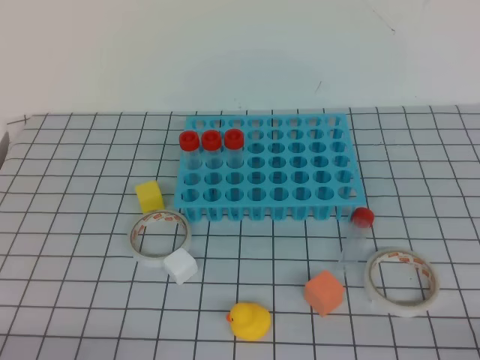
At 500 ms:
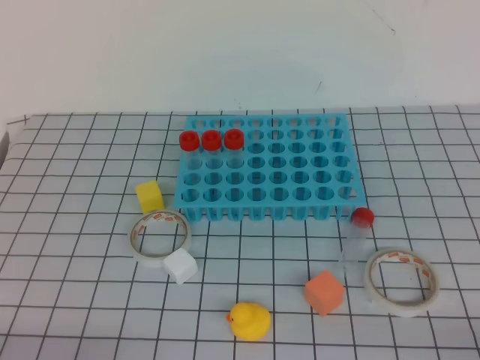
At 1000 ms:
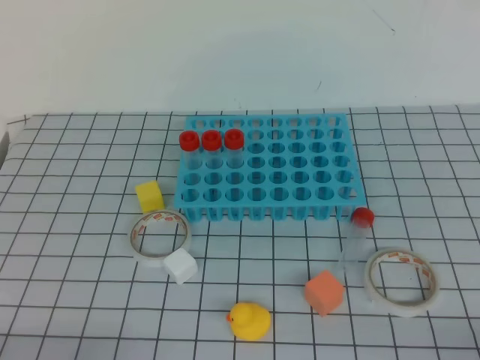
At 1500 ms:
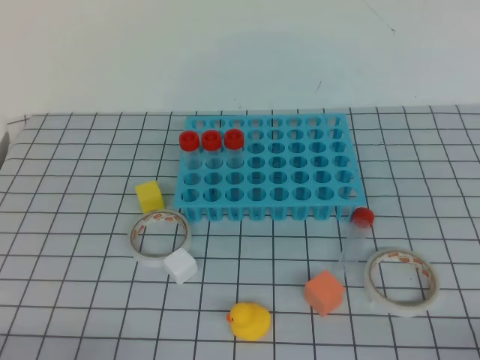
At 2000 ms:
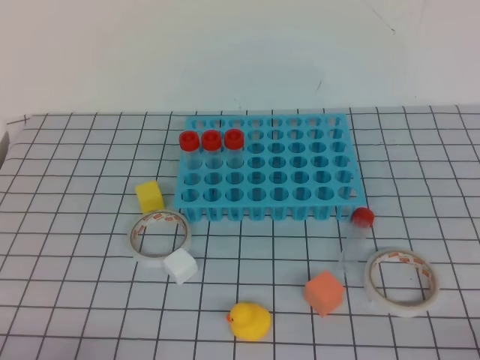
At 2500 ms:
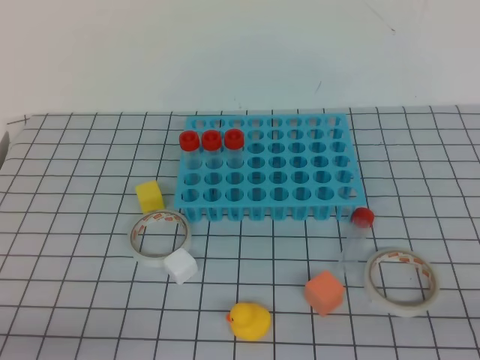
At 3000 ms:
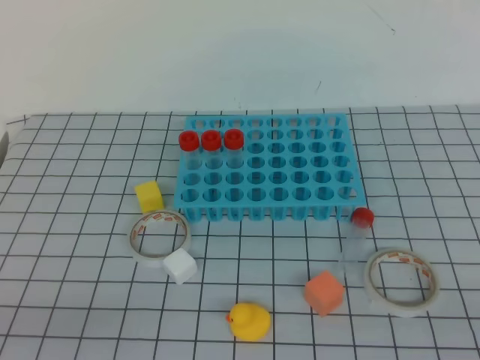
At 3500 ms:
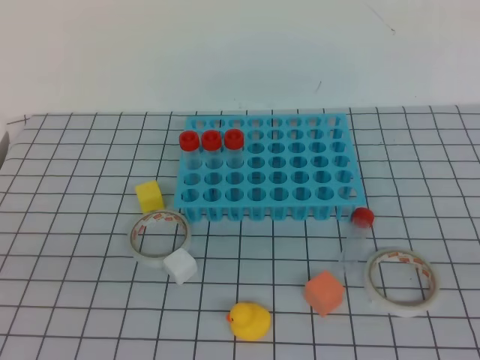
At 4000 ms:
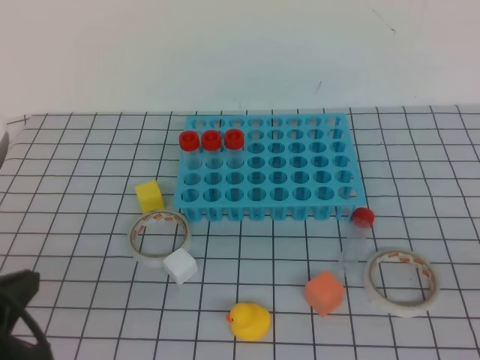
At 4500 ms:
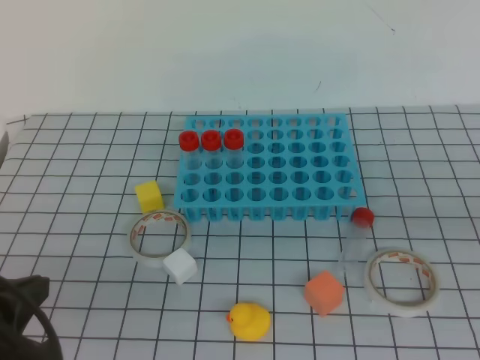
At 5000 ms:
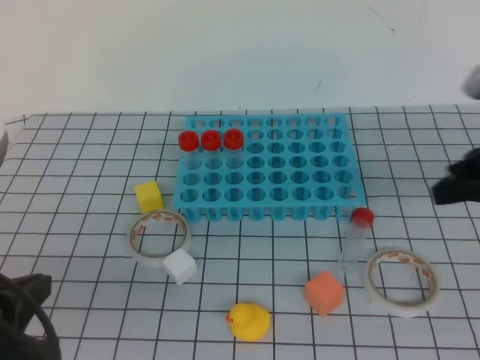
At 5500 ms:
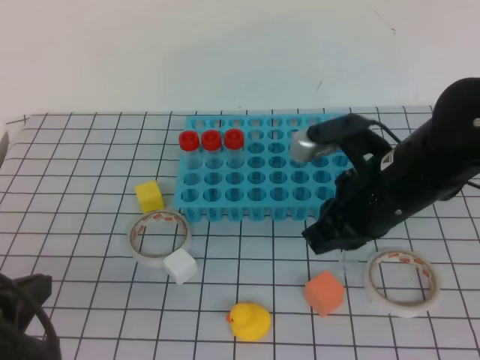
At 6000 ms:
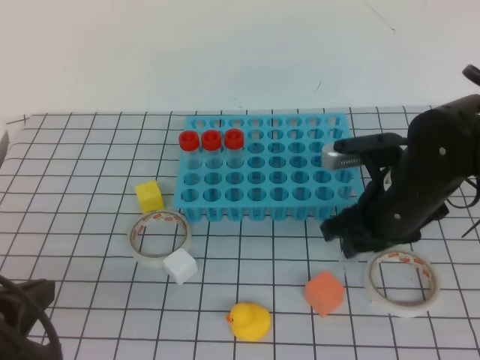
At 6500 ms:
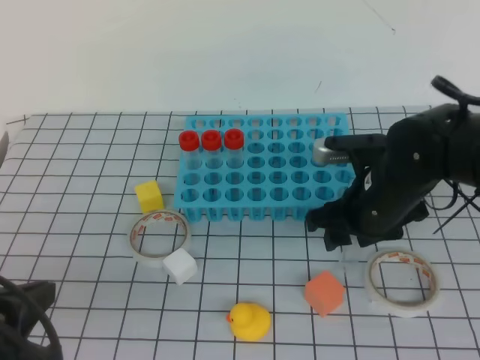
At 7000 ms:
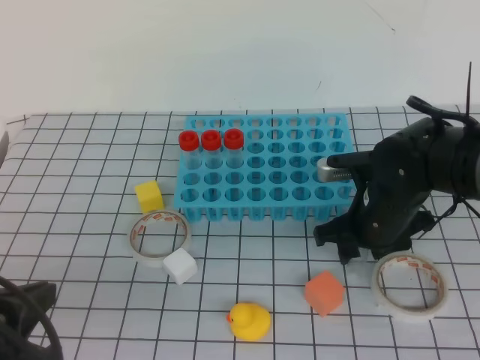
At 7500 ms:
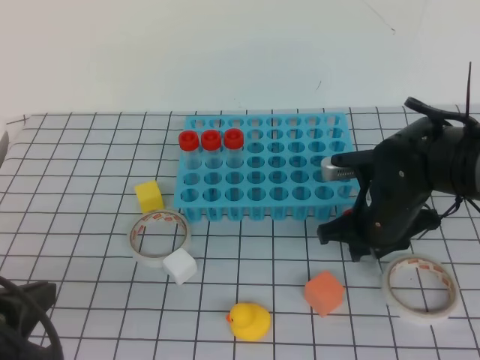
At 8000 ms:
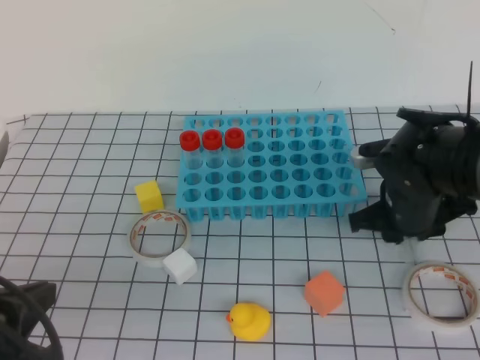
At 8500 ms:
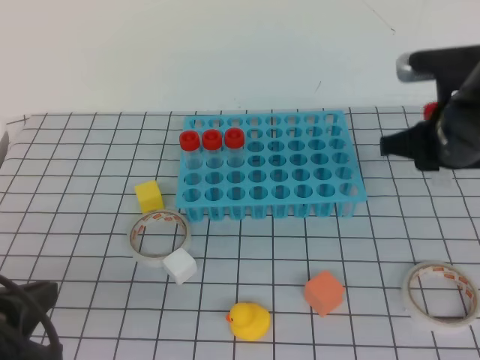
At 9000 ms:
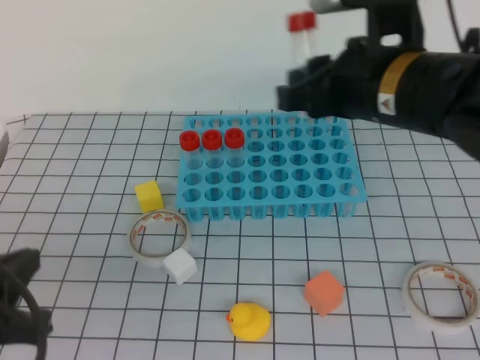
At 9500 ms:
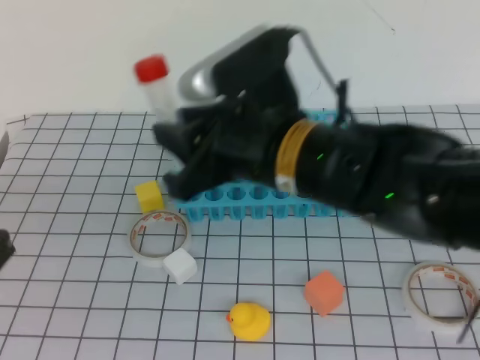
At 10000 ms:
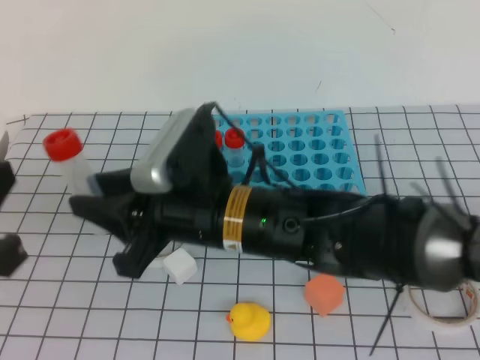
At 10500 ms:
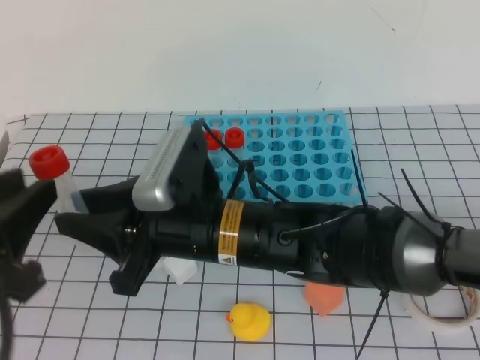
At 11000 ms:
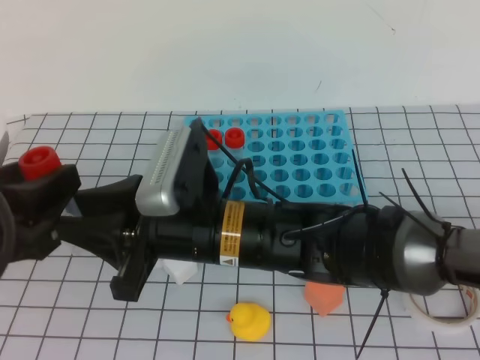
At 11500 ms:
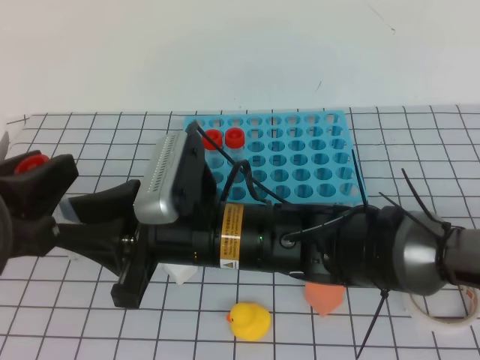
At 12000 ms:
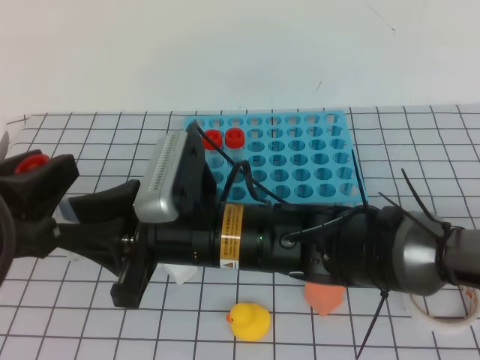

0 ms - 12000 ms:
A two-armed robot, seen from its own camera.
2000 ms - 4000 ms: The left gripper shifts some 15 cm upward and forward.
4000 ms - 6000 ms: The right gripper travels forward and to the left by about 30 cm, and opens up.
6000 ms - 8000 ms: The right gripper changes place by some 5 cm, and opens and closes again.
8000 ms - 10000 ms: The right gripper is displaced to the left, backward and upward by roughly 25 cm; the left gripper is displaced upward by about 5 cm.
10000 ms - 12000 ms: The left gripper opens its fingers.

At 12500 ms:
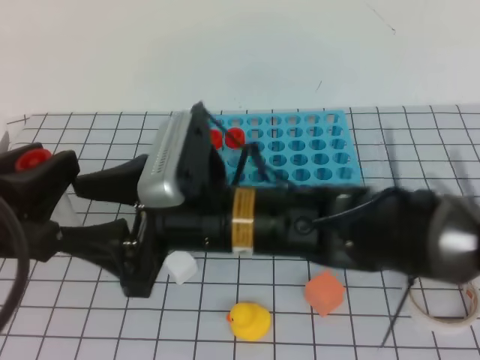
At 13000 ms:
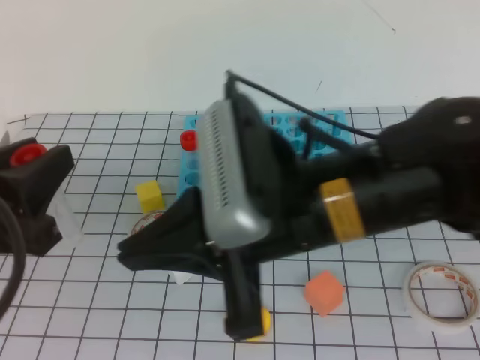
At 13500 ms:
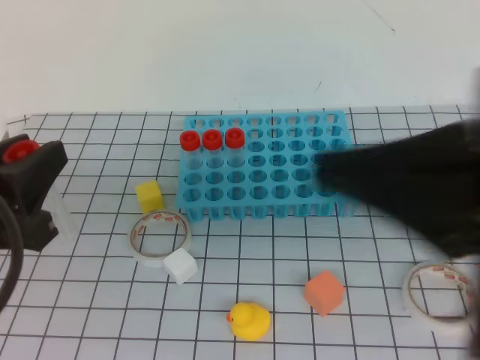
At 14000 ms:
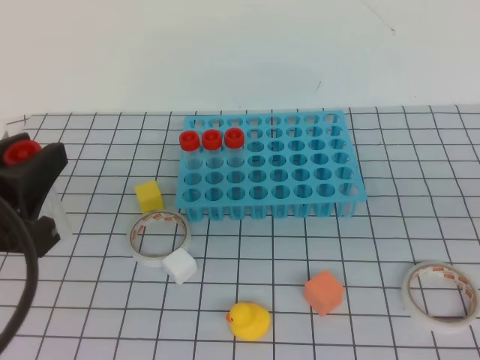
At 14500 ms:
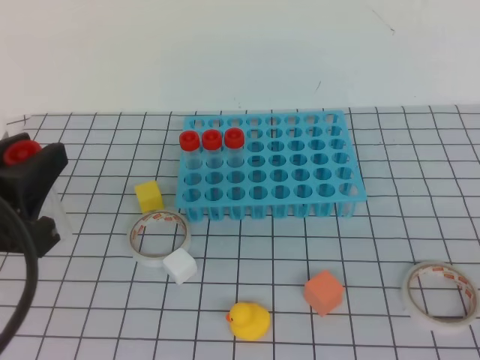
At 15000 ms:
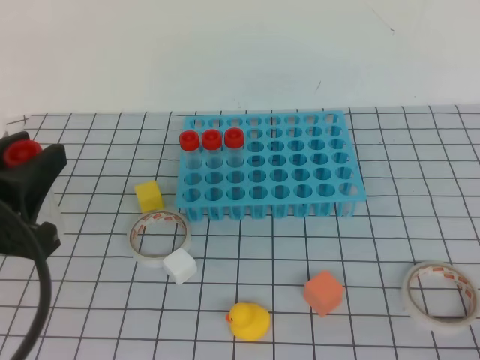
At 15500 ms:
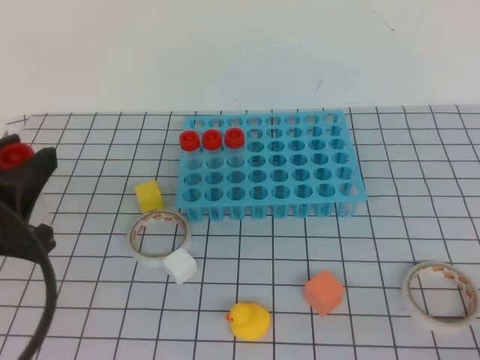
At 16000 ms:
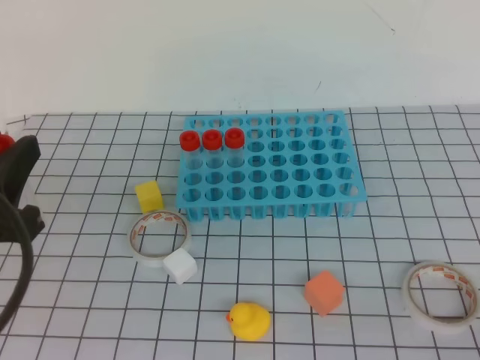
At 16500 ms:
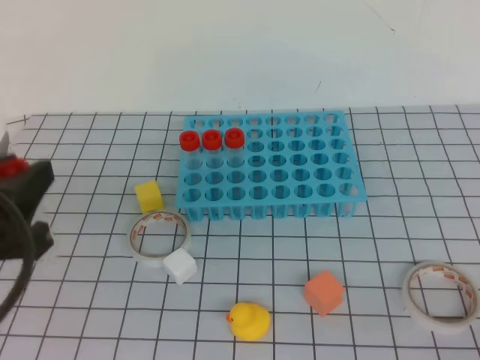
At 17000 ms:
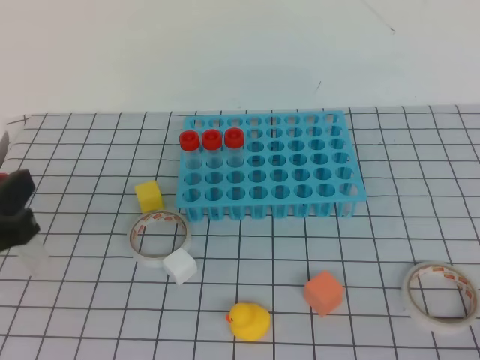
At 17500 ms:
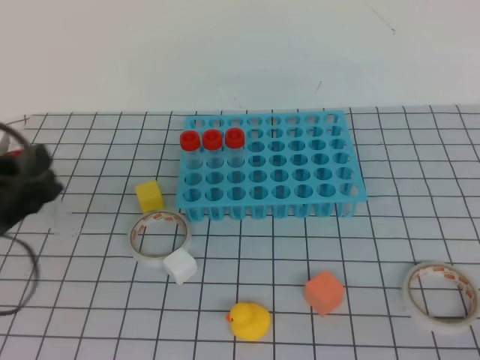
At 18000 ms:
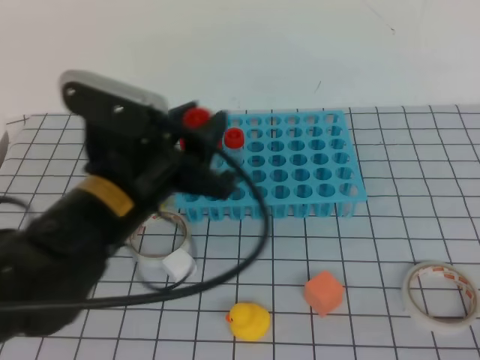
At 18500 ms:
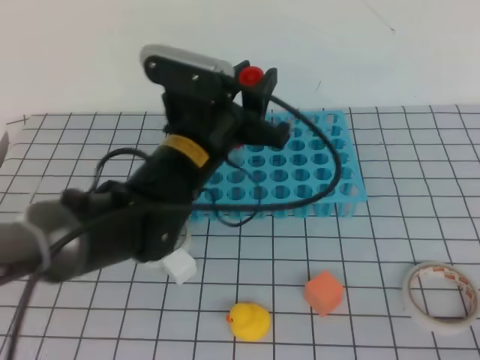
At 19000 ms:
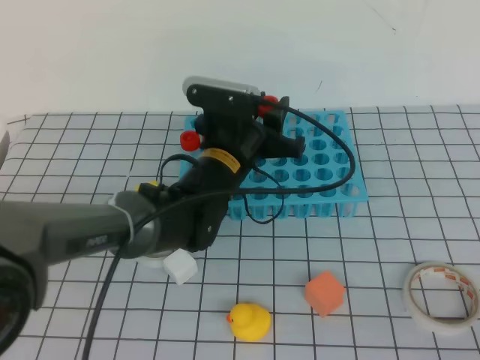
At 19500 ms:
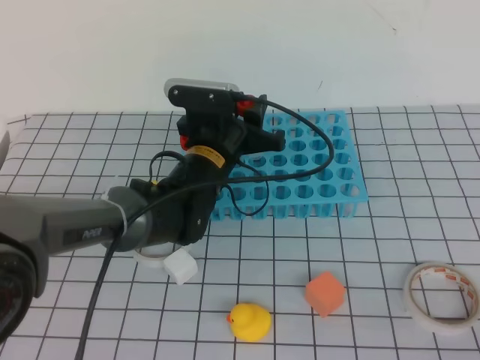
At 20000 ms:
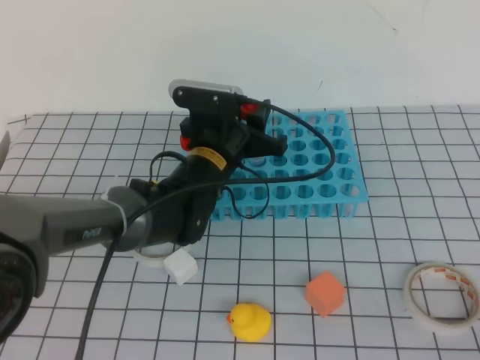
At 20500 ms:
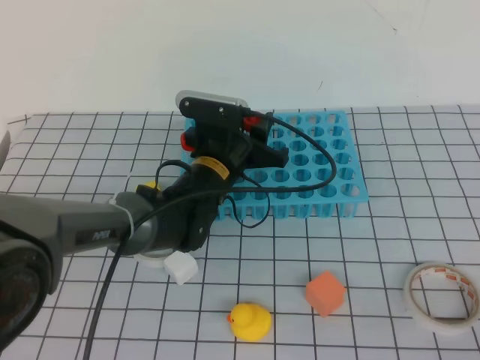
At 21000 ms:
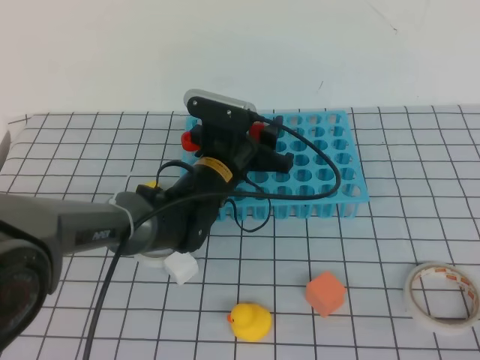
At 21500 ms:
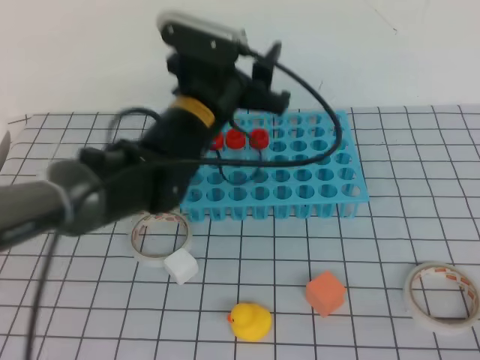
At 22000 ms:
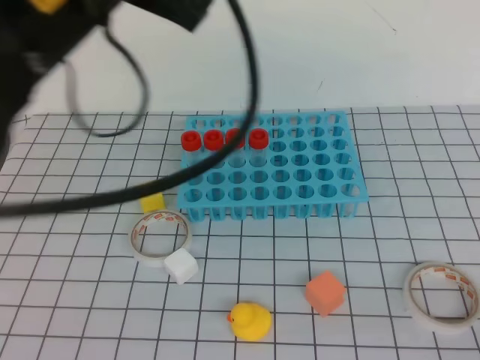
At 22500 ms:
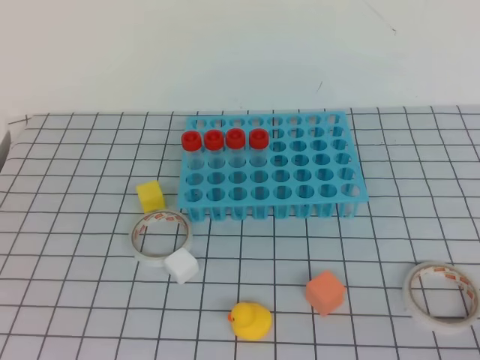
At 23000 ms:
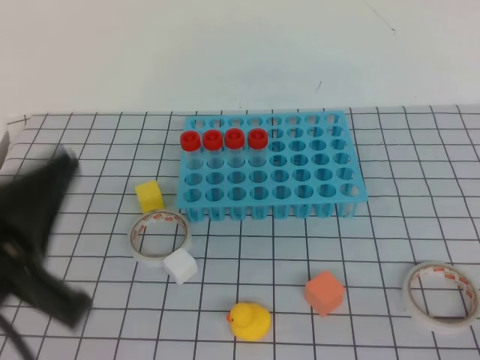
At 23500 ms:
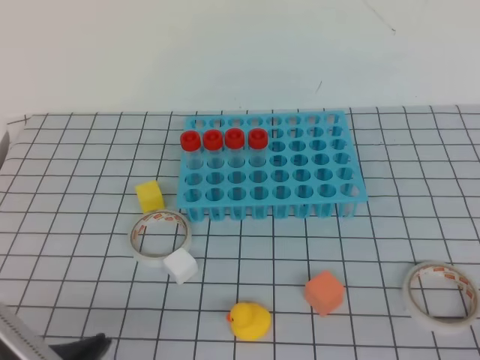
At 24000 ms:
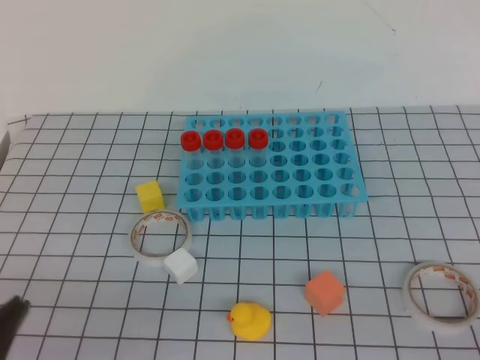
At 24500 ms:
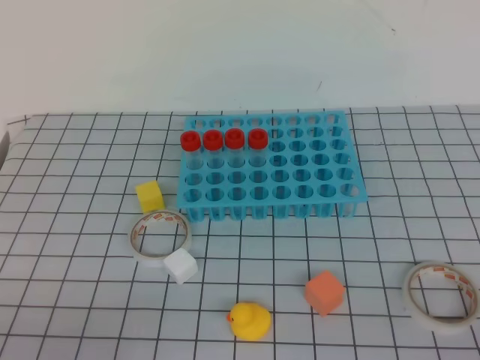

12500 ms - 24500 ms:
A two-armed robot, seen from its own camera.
12500 ms - 14500 ms: The right gripper shifts roughly 40 cm to the right and backward, and closes.
14500 ms - 16500 ms: The grippers move only a little.
16500 ms - 18500 ms: The left gripper heads to the right and forward, covering some 25 cm.
18500 ms - 20500 ms: The left gripper moves downward and forward, roughly 10 cm.
20500 ms - 22500 ms: The left gripper moves upward, backward and to the left, some 40 cm, and closes up.
22500 ms - 24500 ms: The left gripper travels downward by roughly 25 cm.

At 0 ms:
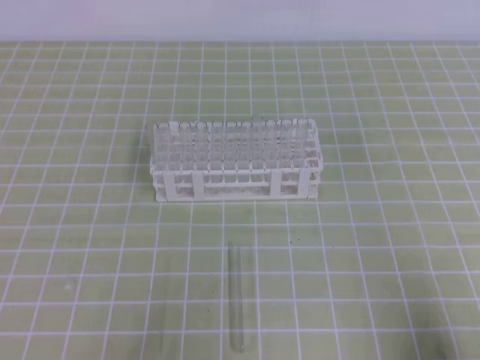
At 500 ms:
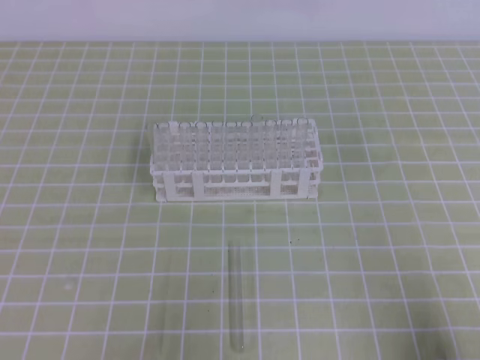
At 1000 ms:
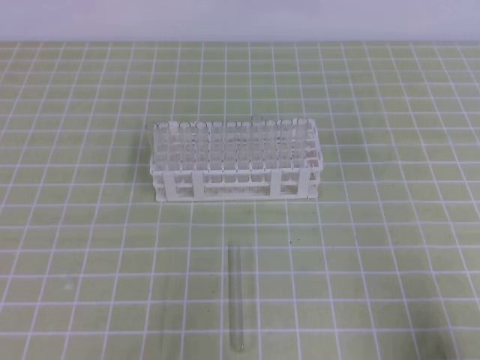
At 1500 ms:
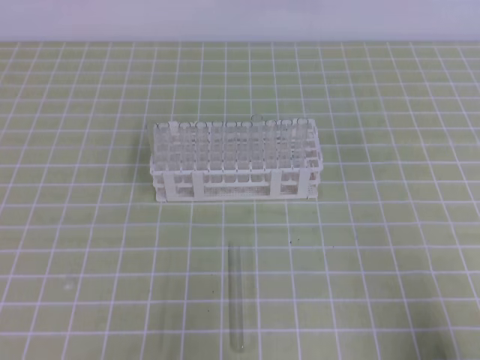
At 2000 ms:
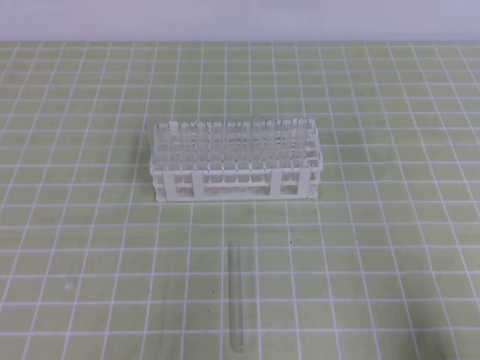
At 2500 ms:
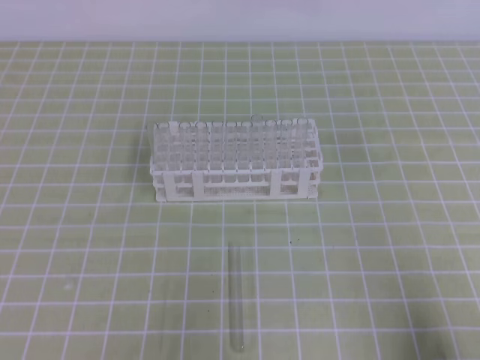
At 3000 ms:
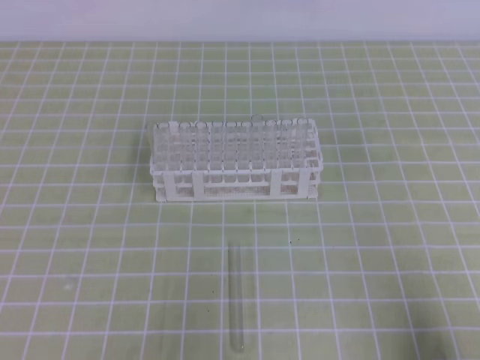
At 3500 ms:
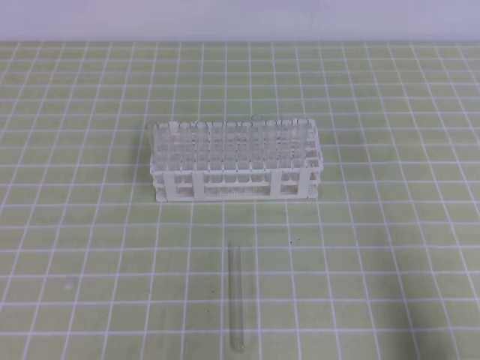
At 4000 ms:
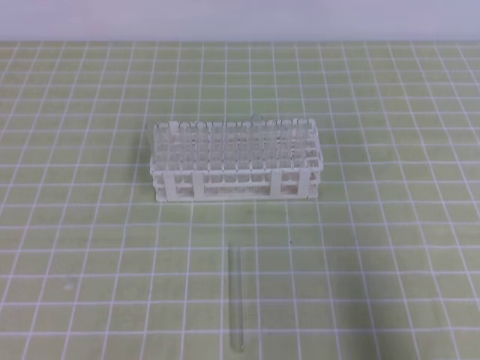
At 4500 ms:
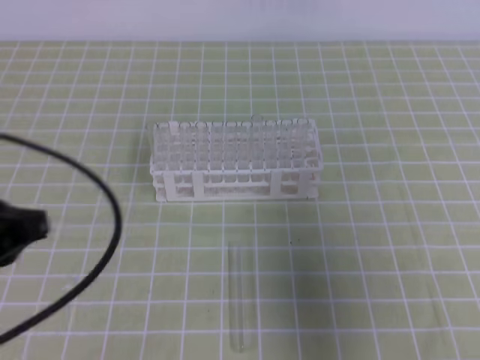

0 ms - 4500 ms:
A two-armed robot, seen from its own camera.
2000 ms - 4500 ms: Both grippers move upward and forward, approximately 15 cm.
